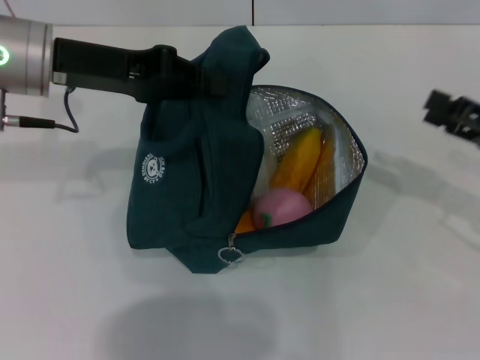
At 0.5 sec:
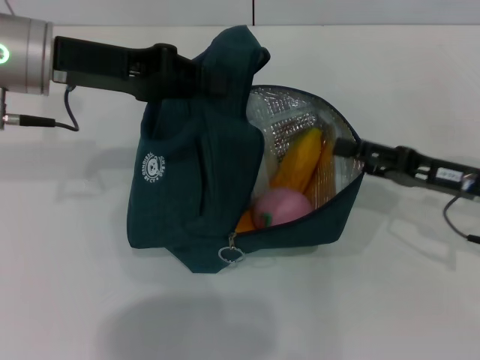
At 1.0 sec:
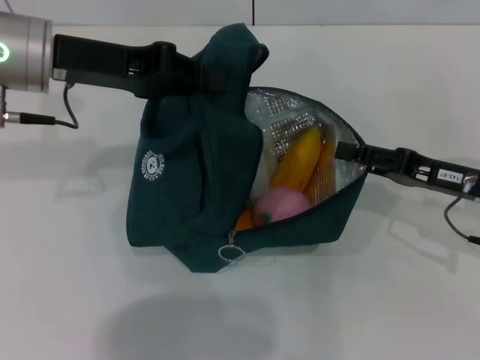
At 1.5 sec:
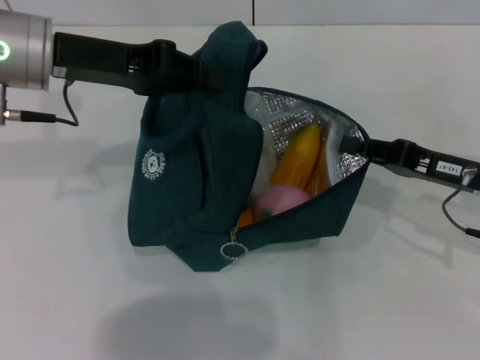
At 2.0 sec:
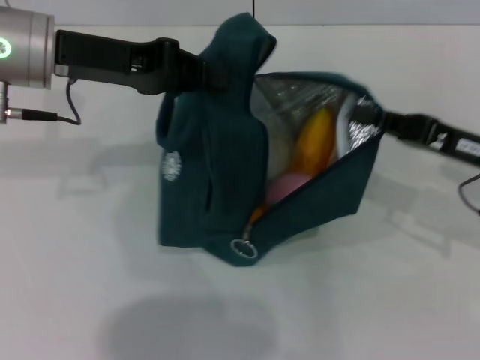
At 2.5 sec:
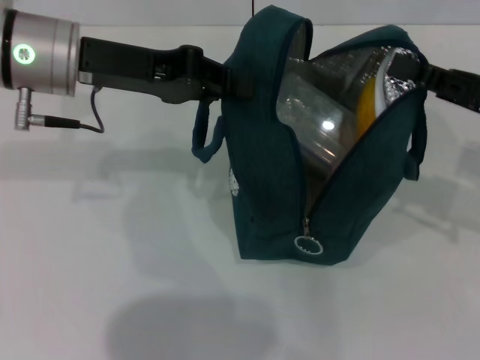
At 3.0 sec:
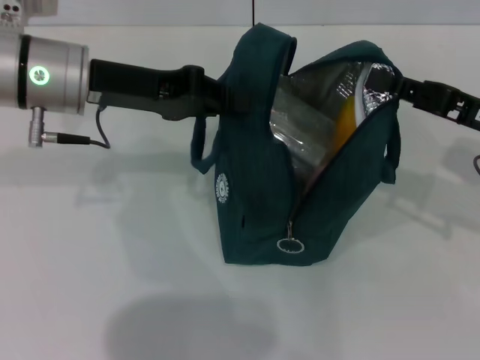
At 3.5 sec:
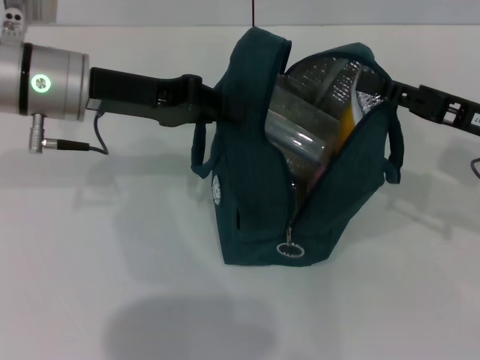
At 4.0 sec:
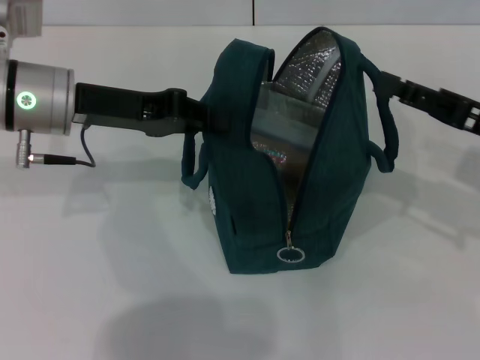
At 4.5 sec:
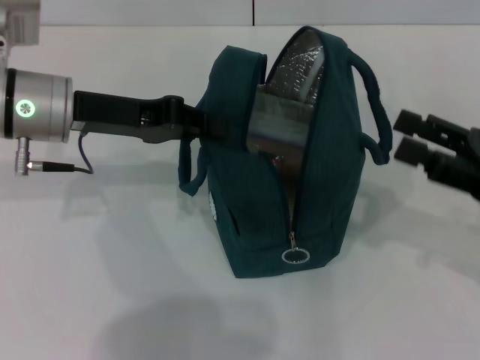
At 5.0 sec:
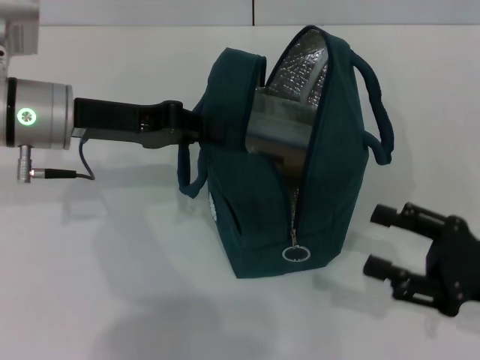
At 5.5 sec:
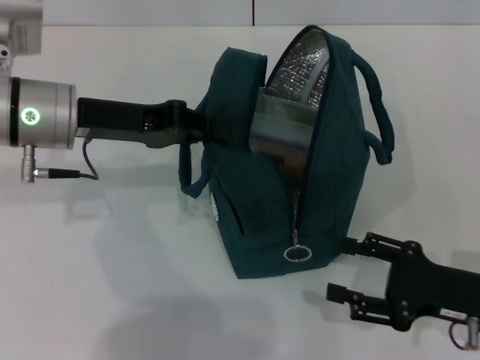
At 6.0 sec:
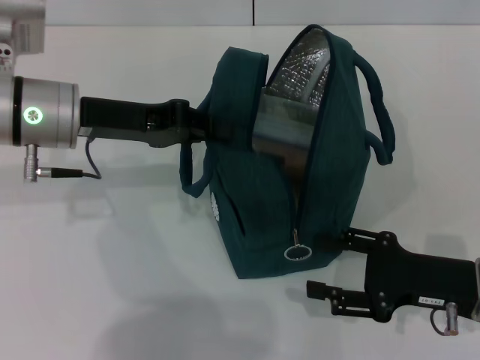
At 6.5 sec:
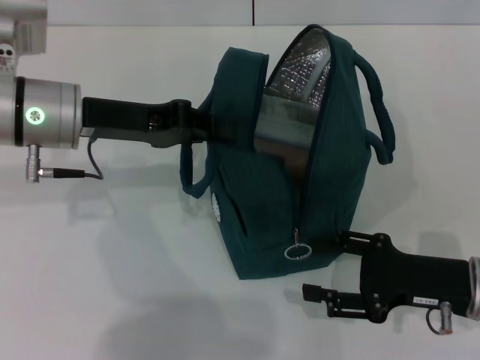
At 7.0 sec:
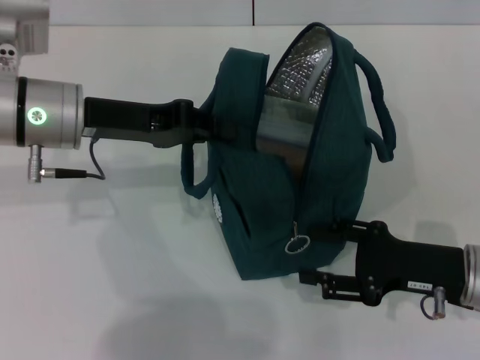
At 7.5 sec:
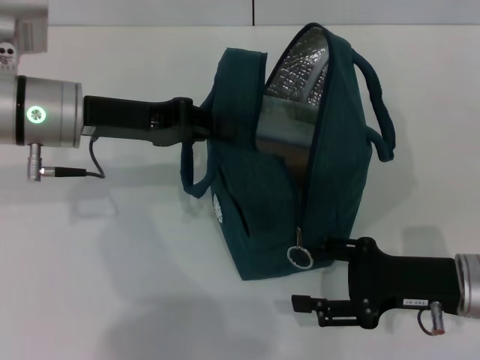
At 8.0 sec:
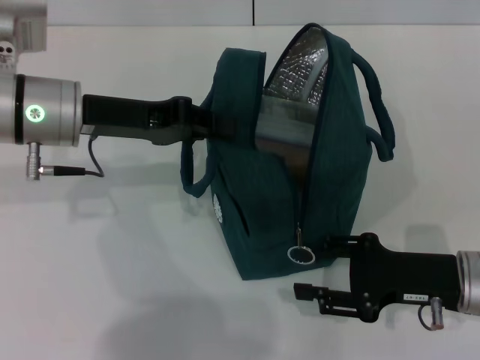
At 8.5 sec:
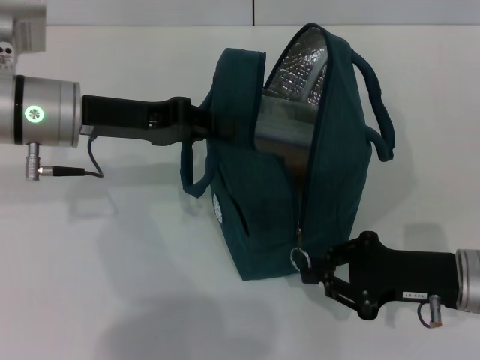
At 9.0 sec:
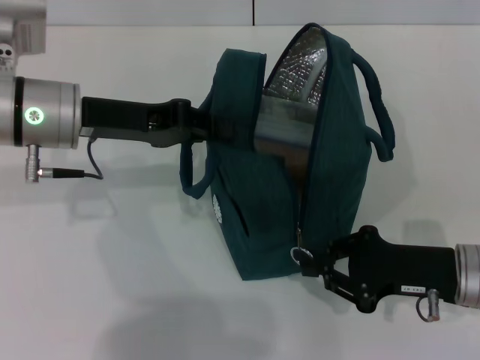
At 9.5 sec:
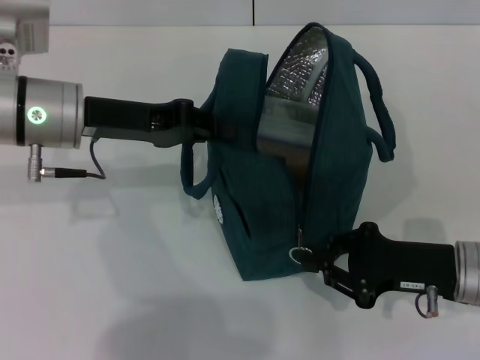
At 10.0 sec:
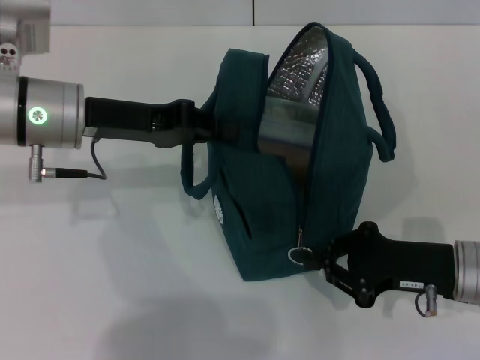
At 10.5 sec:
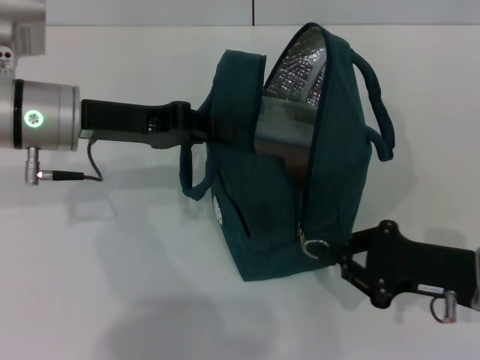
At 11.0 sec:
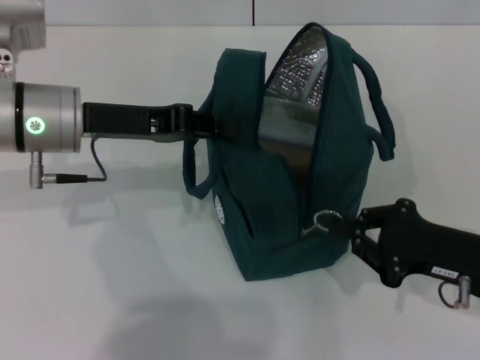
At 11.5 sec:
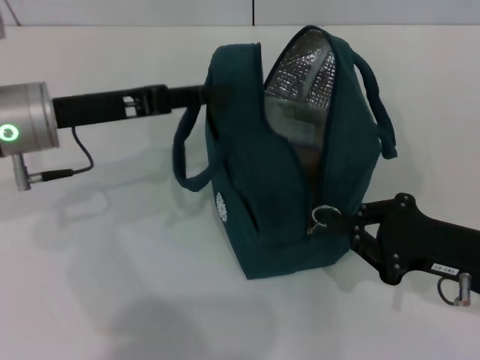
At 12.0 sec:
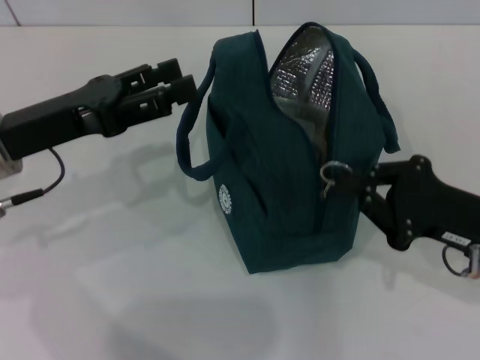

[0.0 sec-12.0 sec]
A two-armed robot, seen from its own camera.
Step, 0.0 sec to 4.0 sec: Hold the lunch bag with your right hand.
Step, 4.5 sec to 11.5 sec: Hold the lunch bag with your left hand.
0.0 sec to 2.0 sec: The right gripper shifts approximately 5 cm to the left, and closes its fingers.
2.0 sec to 4.0 sec: The right gripper opens its fingers.
4.0 sec to 6.0 sec: The right gripper travels downward and backward by approximately 10 cm.
6.0 sec to 8.0 sec: The grippers stay close to where they were, moving slightly.
8.0 sec to 10.0 sec: The right gripper closes.
10.0 sec to 12.0 sec: The left gripper heads backward, covering approximately 5 cm, and opens up.

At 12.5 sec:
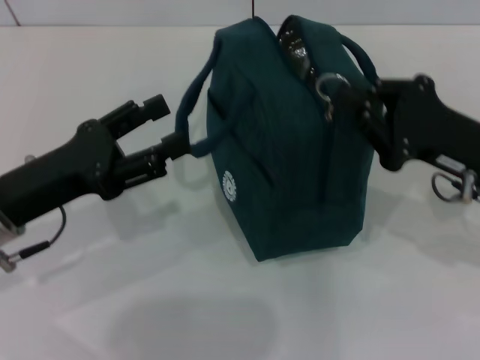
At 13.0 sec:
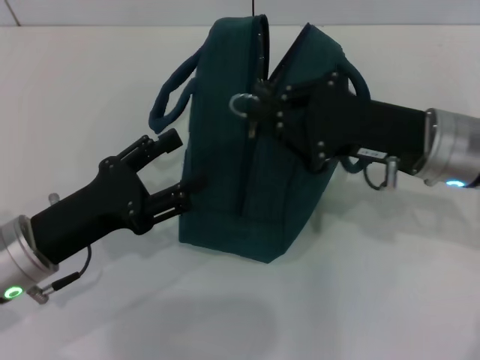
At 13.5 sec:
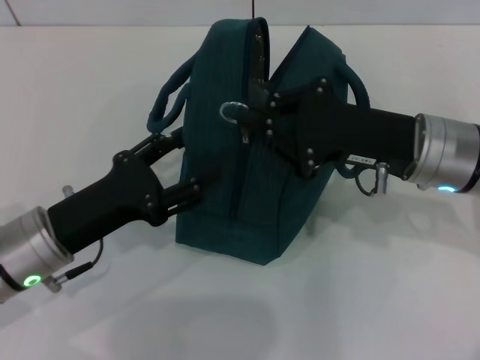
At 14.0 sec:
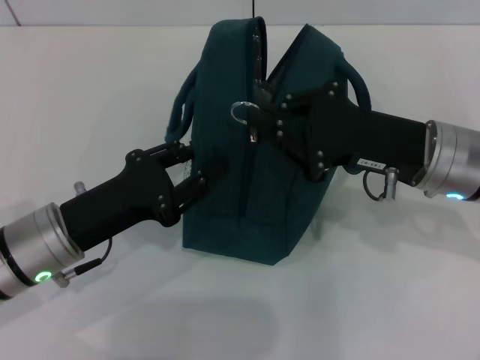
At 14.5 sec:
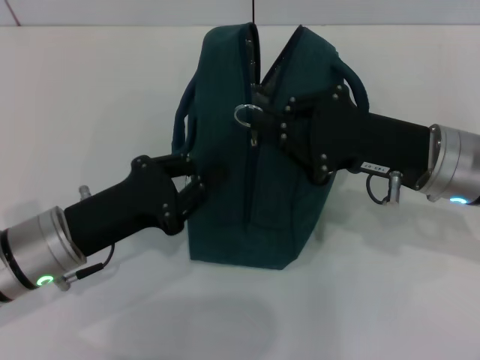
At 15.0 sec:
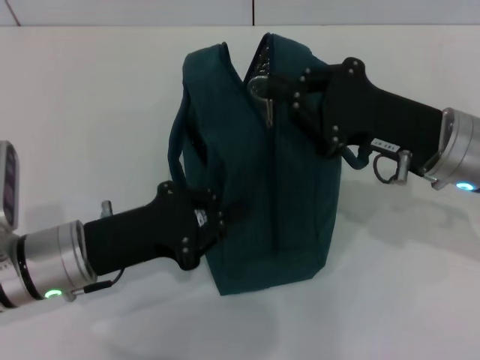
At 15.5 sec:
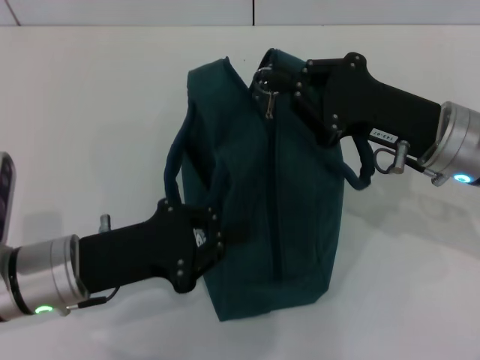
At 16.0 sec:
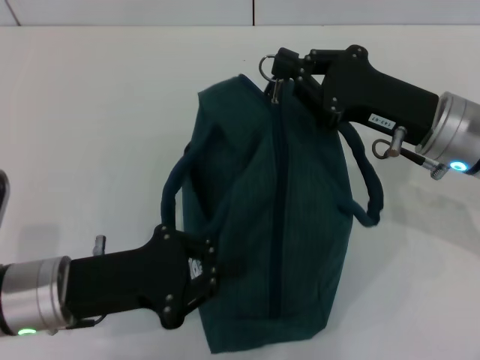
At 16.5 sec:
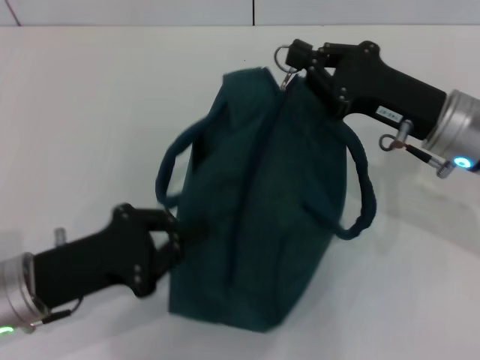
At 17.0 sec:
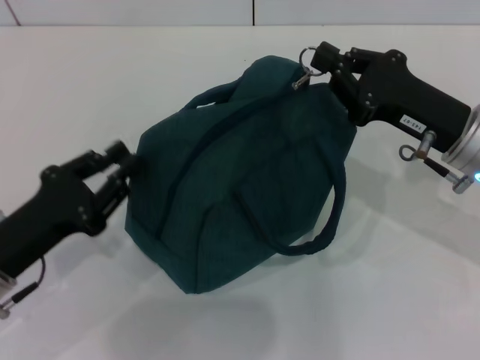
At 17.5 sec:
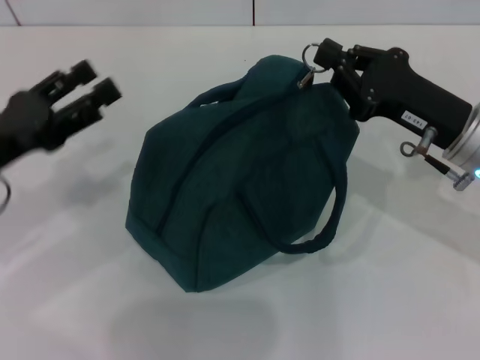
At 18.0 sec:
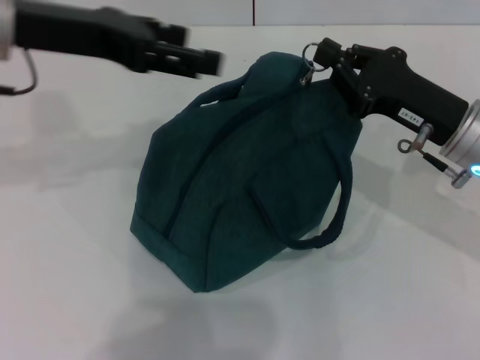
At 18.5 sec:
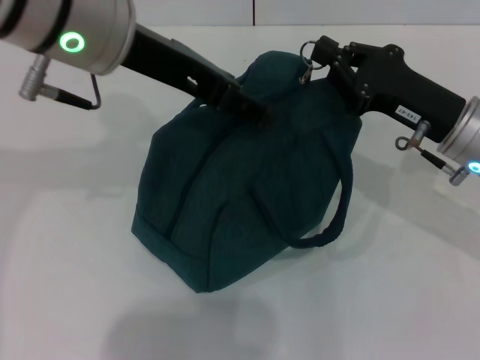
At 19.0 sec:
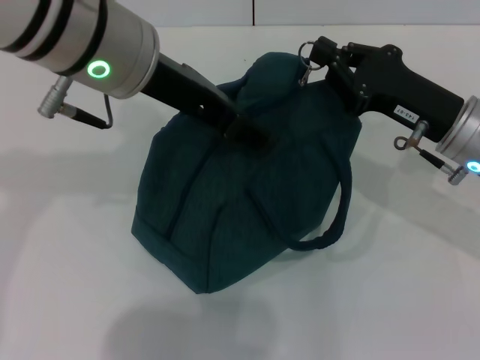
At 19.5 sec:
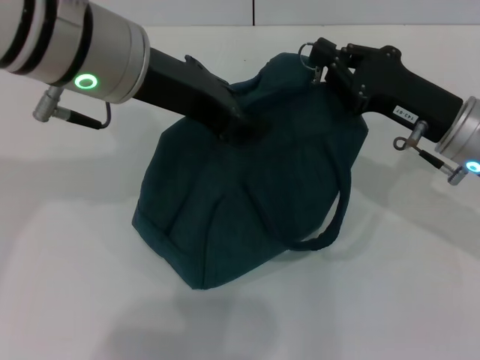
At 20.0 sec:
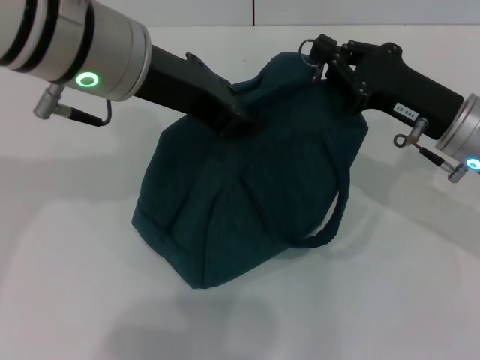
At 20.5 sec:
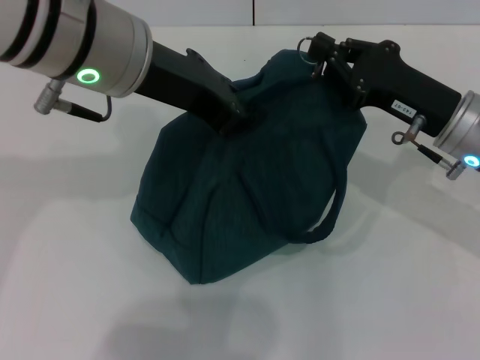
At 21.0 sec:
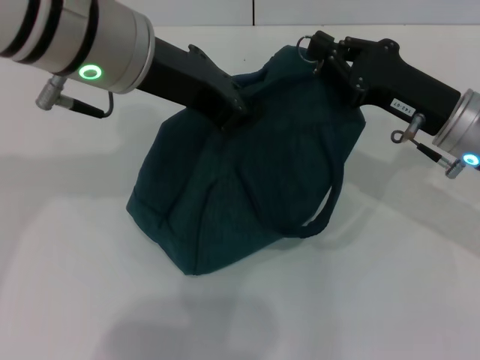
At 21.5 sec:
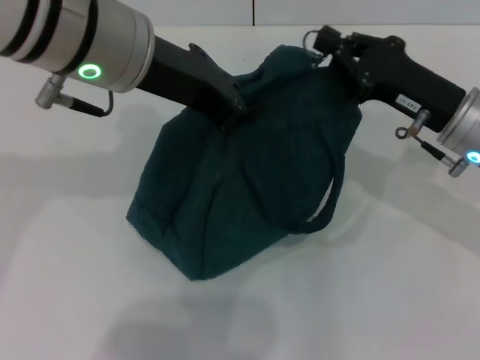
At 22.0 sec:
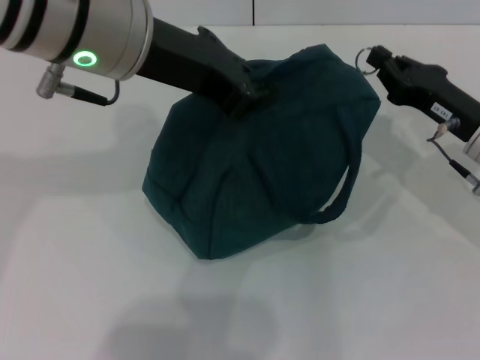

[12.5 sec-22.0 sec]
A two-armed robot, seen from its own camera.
12.5 sec to 14.5 sec: The right gripper travels to the left by about 5 cm, while the left gripper ends up some 5 cm from where it was, and closes.
16.5 sec to 18.0 sec: The left gripper heads upward and forward, covering about 25 cm, and opens its fingers.
18.0 sec to 20.0 sec: The left gripper moves to the right, approximately 10 cm, and closes.

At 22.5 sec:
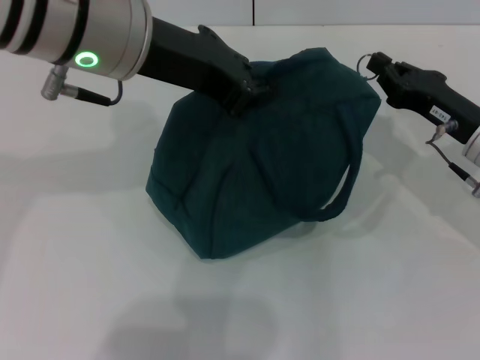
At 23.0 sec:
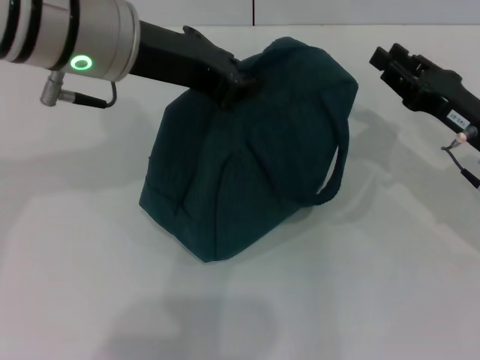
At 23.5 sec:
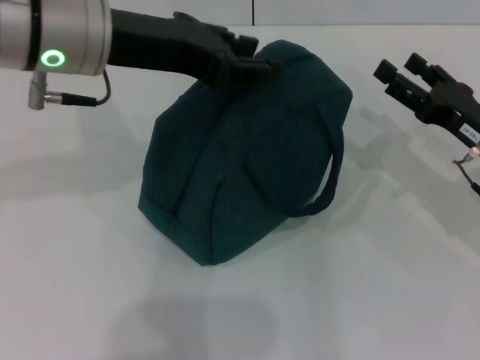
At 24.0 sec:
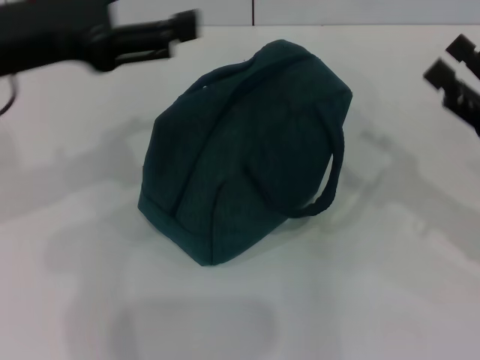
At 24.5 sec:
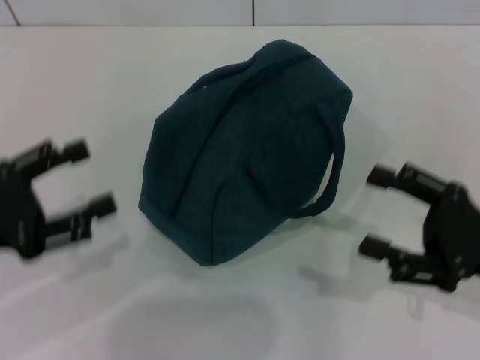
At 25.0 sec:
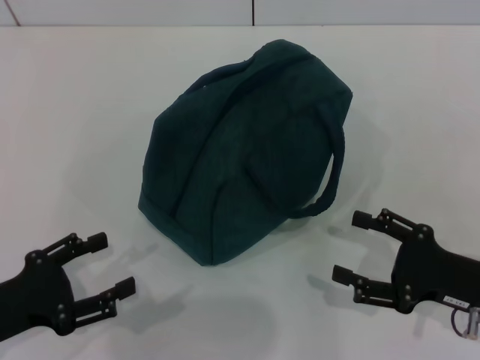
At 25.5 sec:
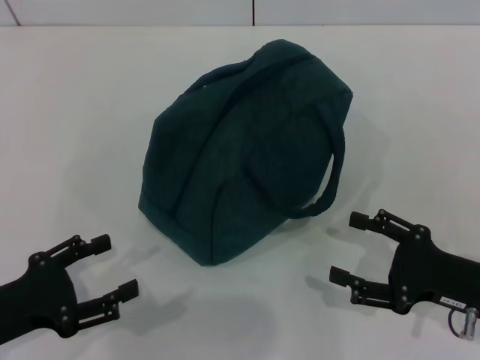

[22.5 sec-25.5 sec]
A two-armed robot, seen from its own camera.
22.5 sec to 24.0 sec: The right gripper is displaced backward by roughly 10 cm, and opens its fingers. Meanwhile the left gripper is displaced to the left by approximately 10 cm, and opens its fingers.
24.0 sec to 25.5 sec: The left gripper moves downward and backward, roughly 20 cm. The right gripper is displaced downward and backward by roughly 10 cm.
